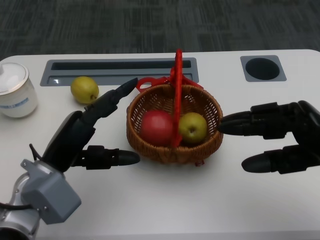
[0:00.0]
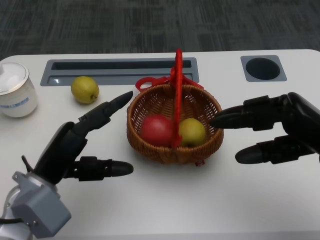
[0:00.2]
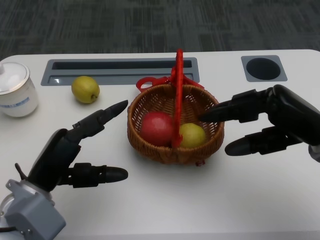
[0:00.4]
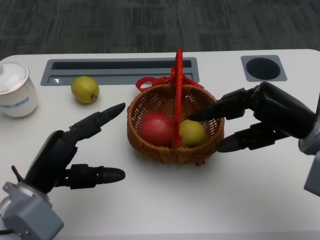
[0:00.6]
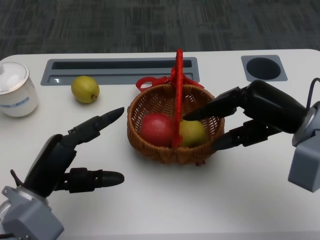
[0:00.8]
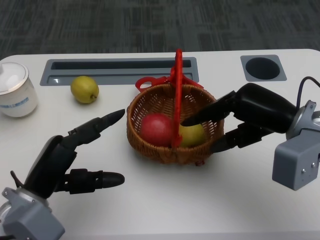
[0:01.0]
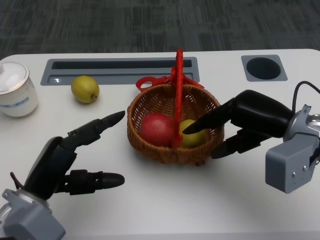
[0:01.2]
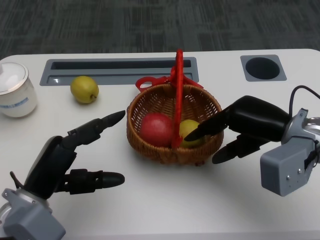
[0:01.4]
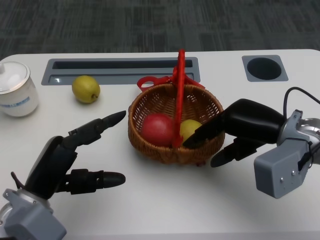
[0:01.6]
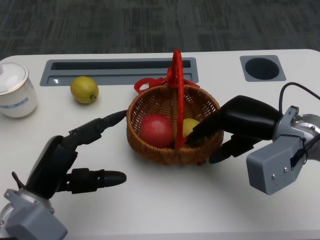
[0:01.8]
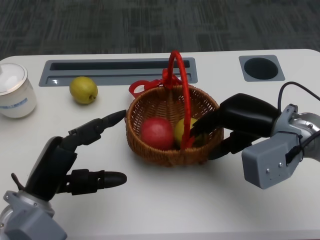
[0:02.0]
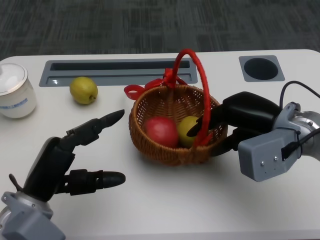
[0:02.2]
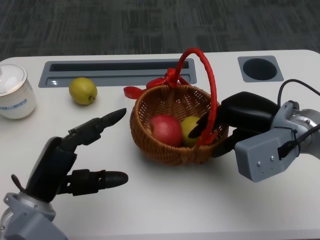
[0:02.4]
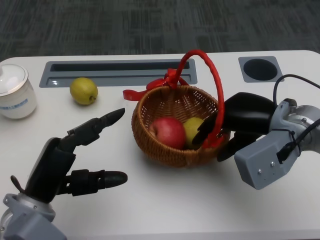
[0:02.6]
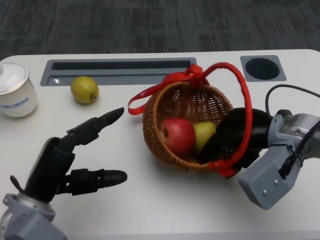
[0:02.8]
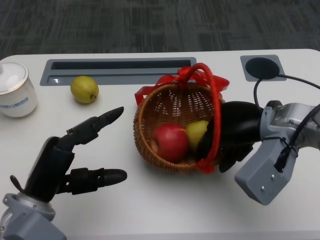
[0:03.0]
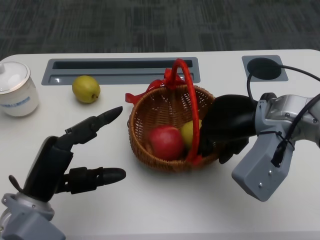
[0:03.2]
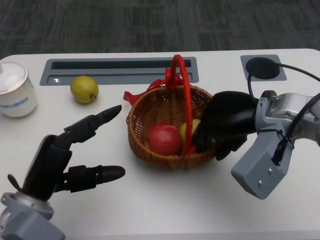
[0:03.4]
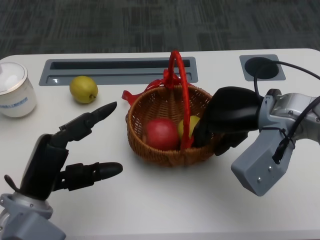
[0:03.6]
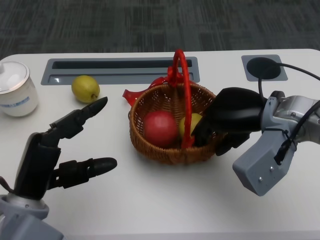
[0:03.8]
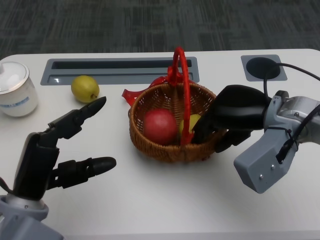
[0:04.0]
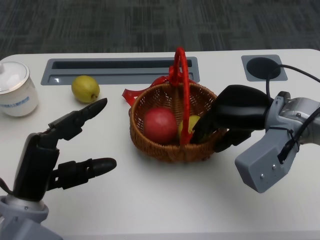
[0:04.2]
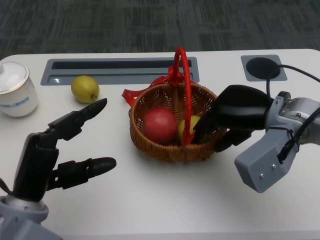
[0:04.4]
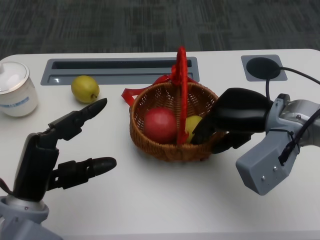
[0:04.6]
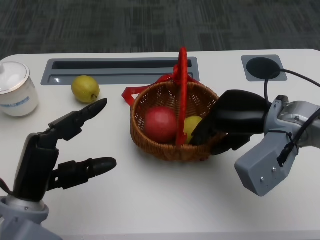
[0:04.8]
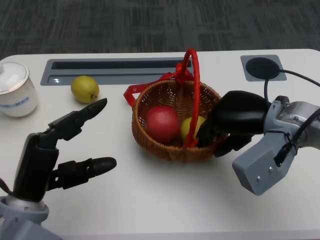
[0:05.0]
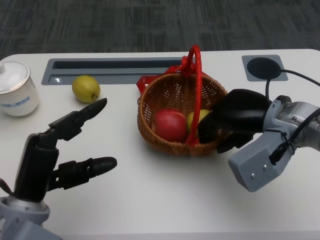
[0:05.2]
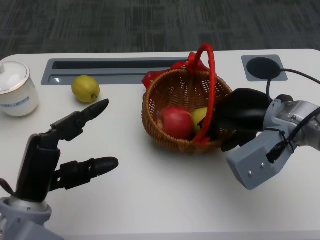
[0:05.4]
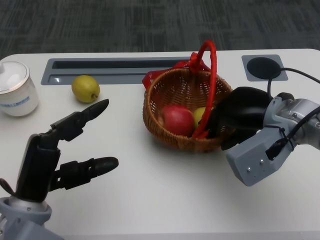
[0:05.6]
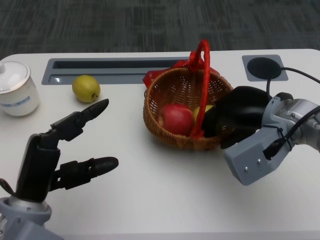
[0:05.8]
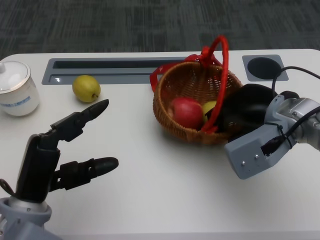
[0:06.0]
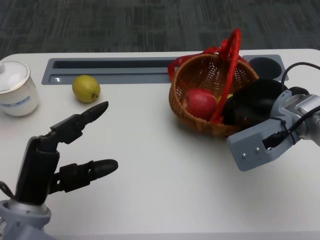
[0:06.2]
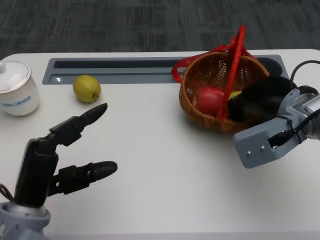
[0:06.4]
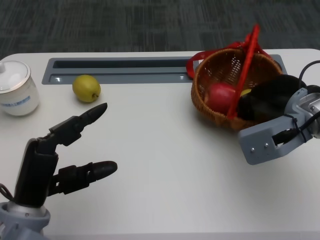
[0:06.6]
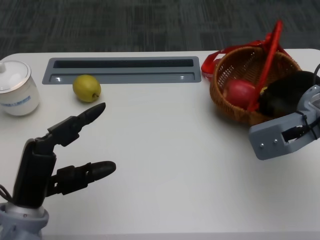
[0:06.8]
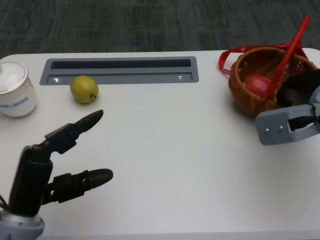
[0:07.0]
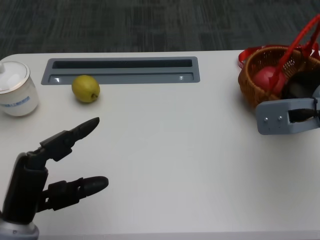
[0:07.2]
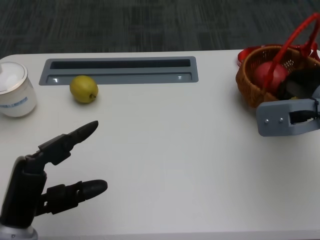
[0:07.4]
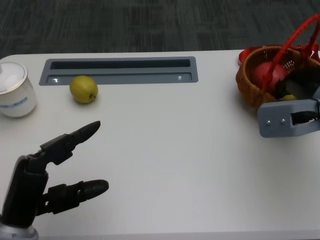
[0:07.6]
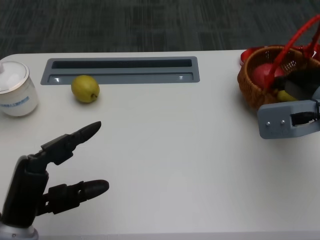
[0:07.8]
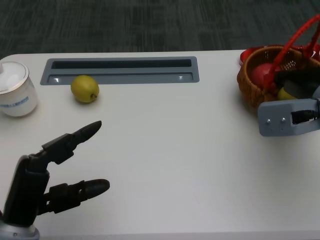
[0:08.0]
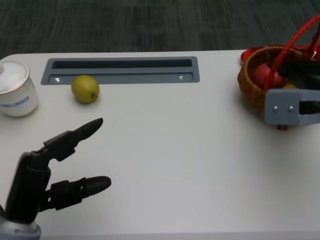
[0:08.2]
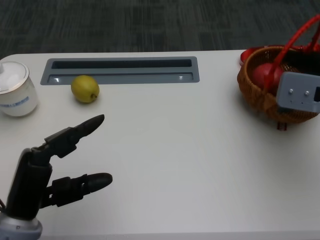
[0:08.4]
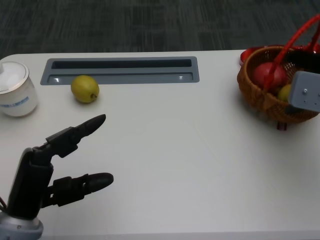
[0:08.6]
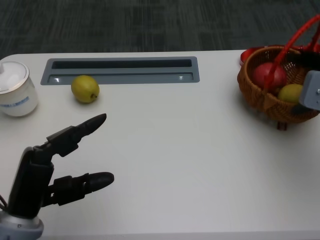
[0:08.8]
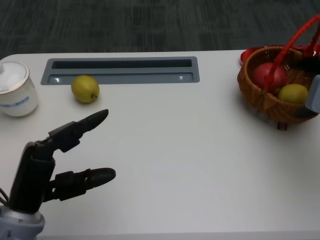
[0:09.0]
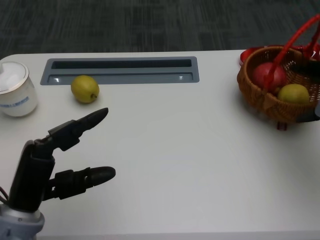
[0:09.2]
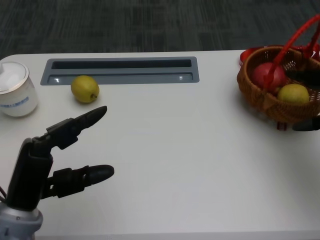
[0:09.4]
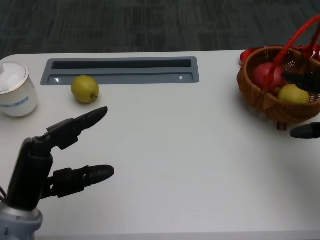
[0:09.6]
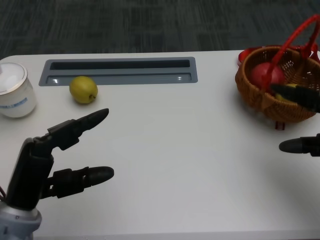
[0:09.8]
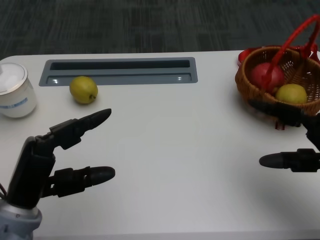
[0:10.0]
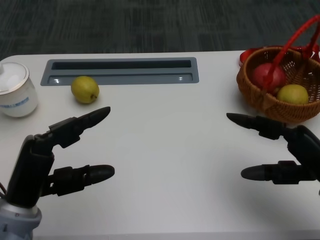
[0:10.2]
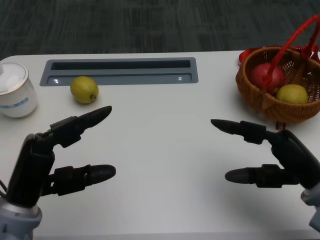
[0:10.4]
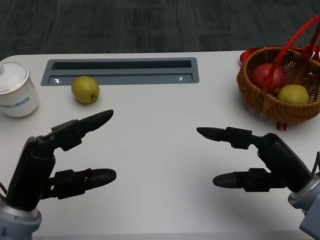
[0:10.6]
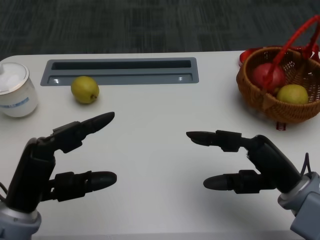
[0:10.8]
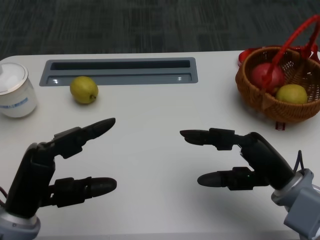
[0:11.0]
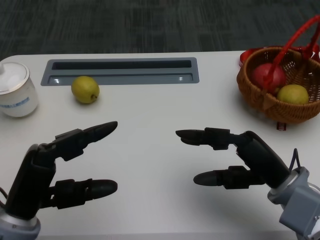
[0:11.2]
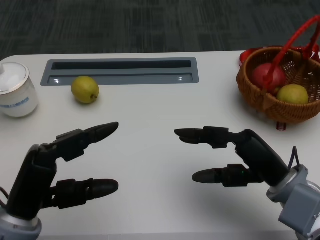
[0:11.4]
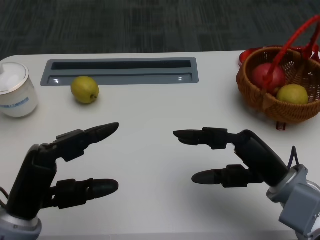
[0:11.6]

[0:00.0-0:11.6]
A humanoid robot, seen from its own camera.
Step, 0:02.0 to 0:05.0: Move the basket to the front of the table with the right gripper.
0:00.0 to 0:01.4: The right hand shifts approximately 10 cm forward and to the left.
0:04.4 to 0:05.8: The hands stay close to where they were, moving slightly.
0:05.8 to 0:07.2: The right hand goes some 5 cm to the right.
0:08.8 to 0:10.2: The right hand heads backward and downward, covering some 10 cm.
0:10.2 to 0:11.6: The right hand shifts approximately 5 cm to the left.

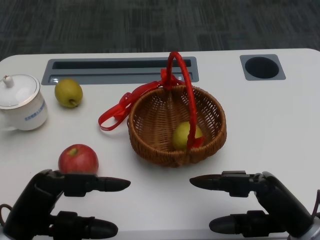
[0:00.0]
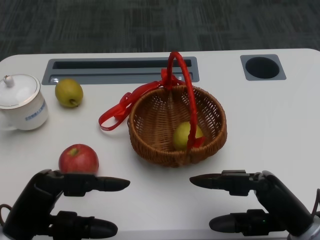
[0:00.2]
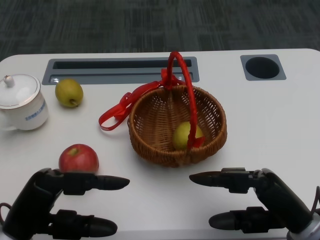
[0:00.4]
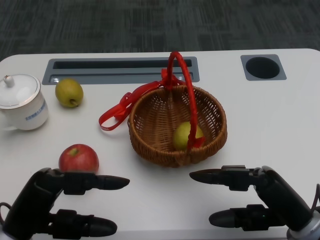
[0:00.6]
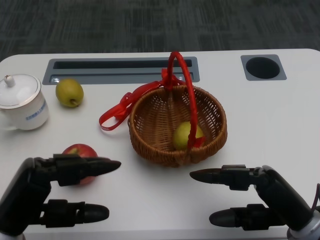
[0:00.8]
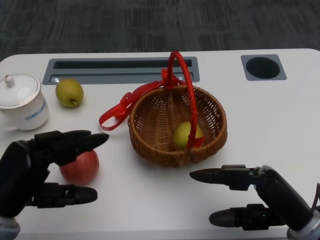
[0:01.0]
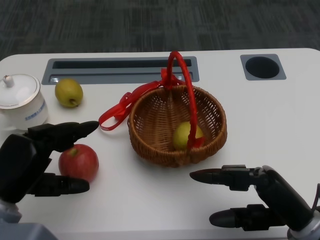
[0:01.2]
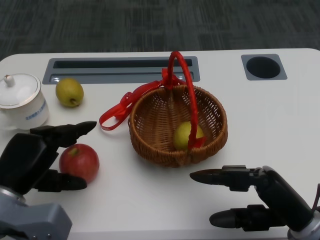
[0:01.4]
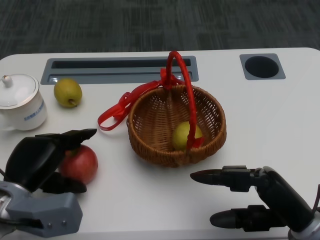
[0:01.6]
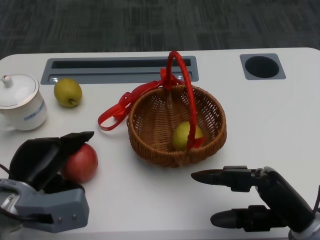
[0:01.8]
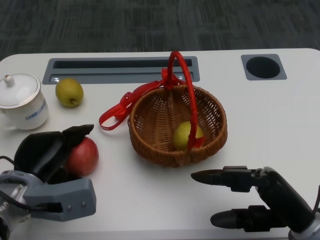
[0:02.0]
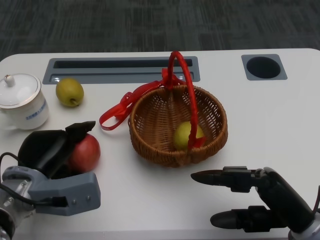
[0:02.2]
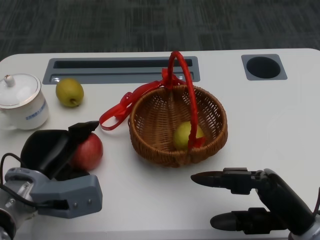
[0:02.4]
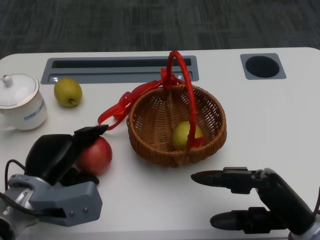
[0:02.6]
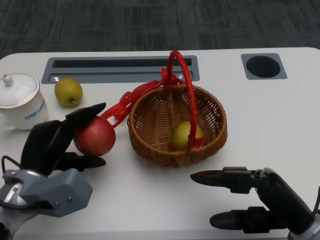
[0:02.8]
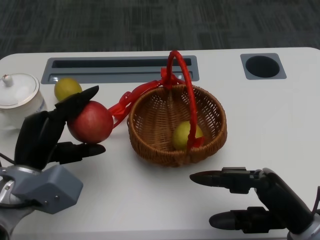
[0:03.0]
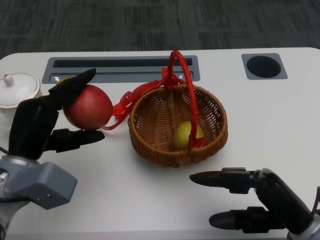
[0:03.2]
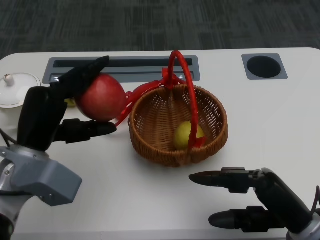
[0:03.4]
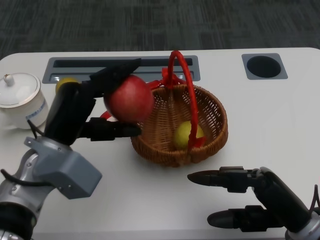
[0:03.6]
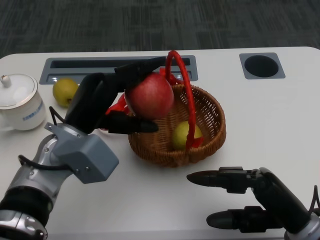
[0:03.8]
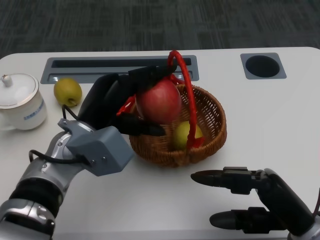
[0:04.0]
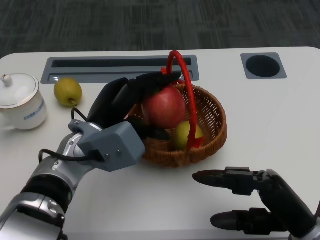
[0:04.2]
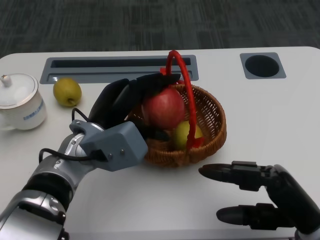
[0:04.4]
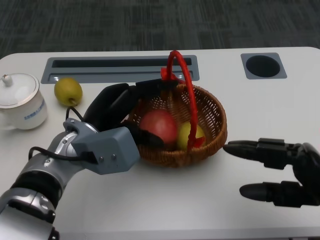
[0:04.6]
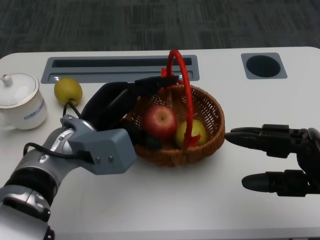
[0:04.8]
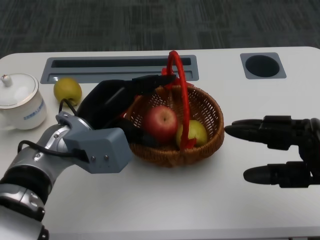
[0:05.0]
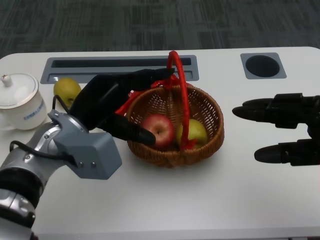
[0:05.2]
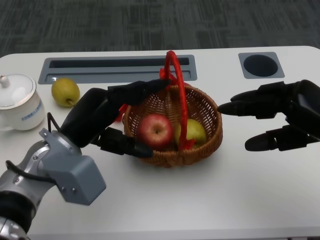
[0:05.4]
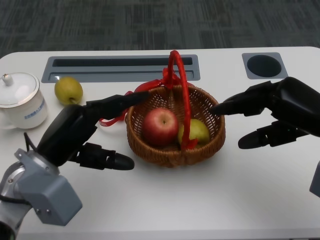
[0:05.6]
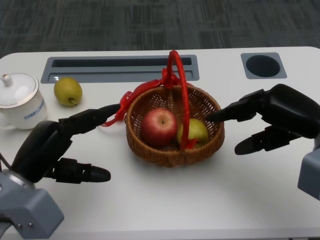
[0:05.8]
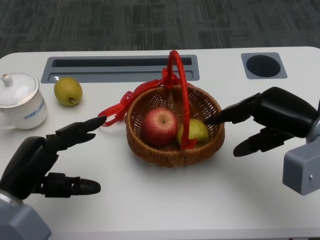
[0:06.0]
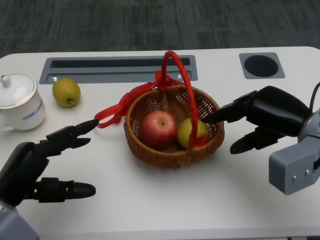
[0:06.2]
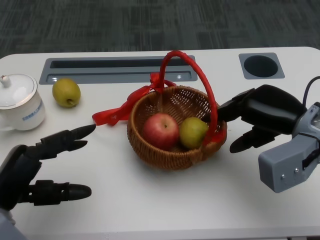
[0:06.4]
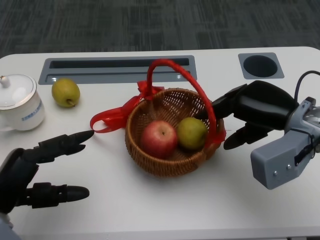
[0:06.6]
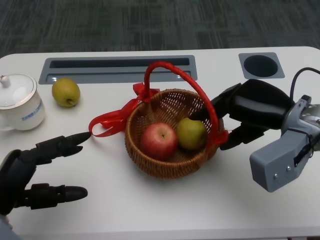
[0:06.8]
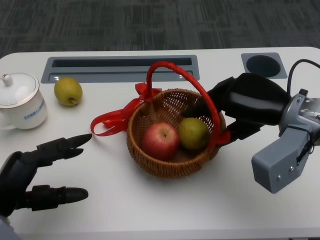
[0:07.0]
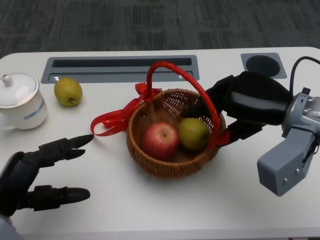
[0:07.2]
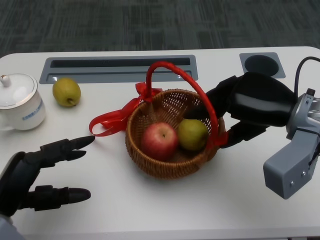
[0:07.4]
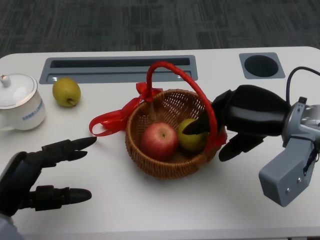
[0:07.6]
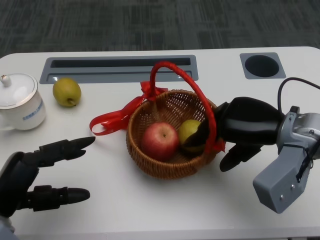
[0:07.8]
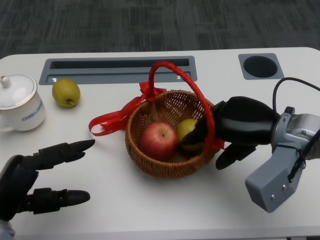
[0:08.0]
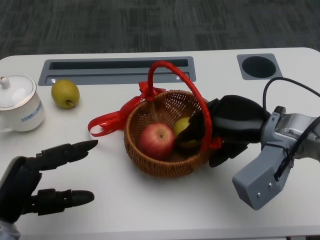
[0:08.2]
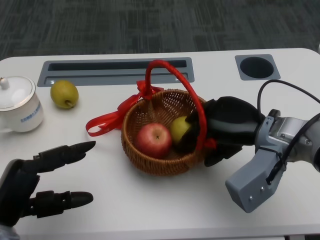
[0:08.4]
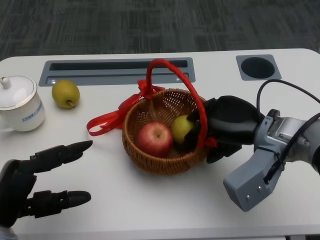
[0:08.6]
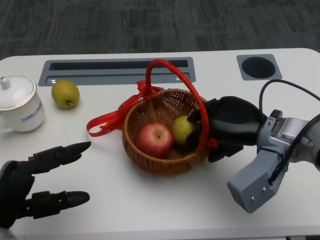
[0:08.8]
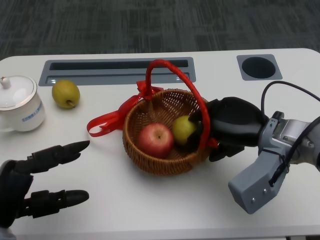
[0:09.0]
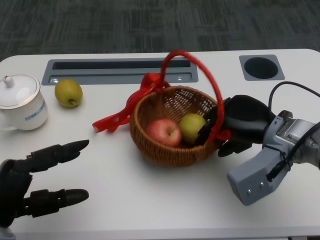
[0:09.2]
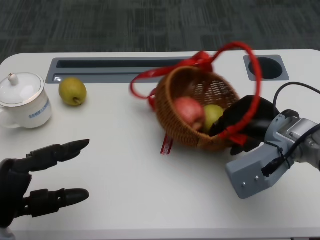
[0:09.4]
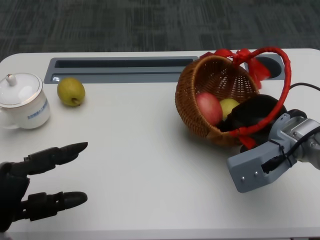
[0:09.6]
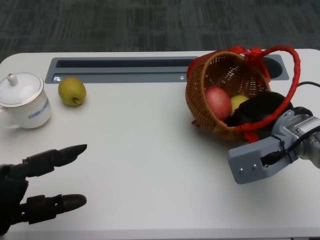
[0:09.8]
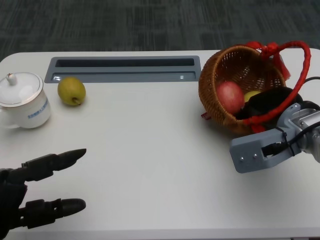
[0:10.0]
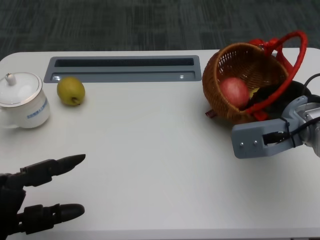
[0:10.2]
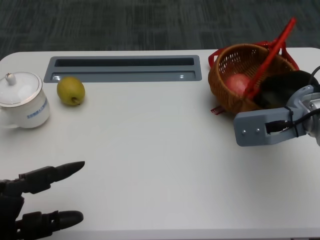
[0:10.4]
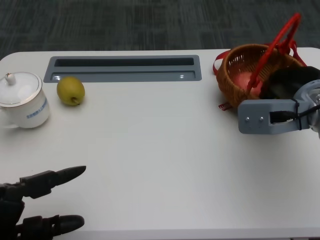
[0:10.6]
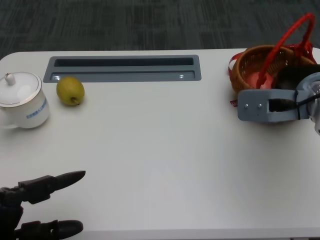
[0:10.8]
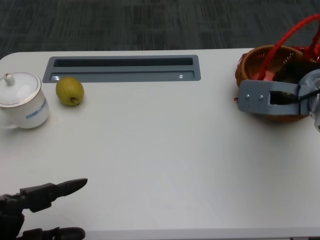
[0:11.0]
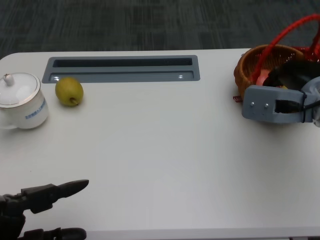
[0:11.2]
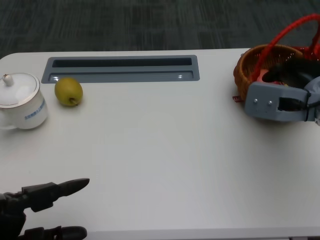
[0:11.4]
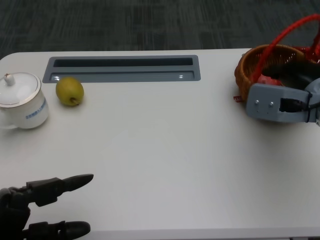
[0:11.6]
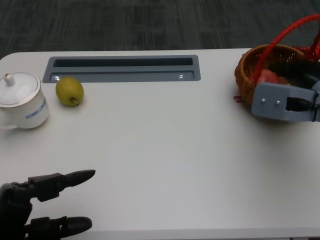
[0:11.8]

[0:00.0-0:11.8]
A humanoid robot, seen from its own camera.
Step, 0:00.6 to 0:01.6: Grasp the apple with the left gripper.
Step, 0:01.8 to 0:03.8: Place the apple into the basket with the left gripper.
Step, 0:04.2 to 0:07.6: Grasp the basket with the right gripper.
Step, 0:07.8 to 0:09.6: Move the basket to the front of the table with the right gripper.
0:03.0 to 0:04.4: The left hand goes some 10 cm to the right.
0:04.4 to 0:06.0: The right hand is displaced forward and upward by approximately 15 cm, while the left hand moves to the left and backward, roughly 15 cm.
0:07.4 to 0:08.8: The right hand moves some 5 cm.
0:08.8 to 0:10.4: The right hand ends up approximately 5 cm from where it was.
0:10.4 to 0:11.8: The hands move only a little.
